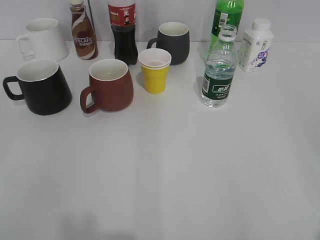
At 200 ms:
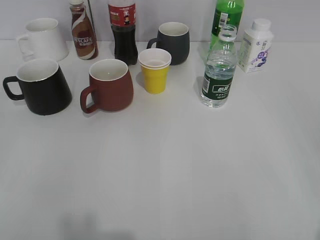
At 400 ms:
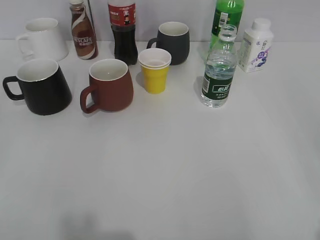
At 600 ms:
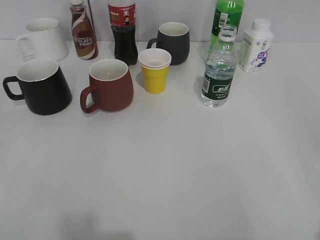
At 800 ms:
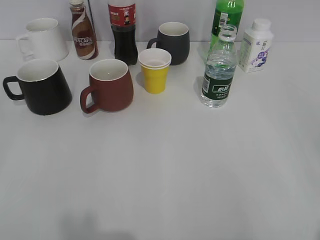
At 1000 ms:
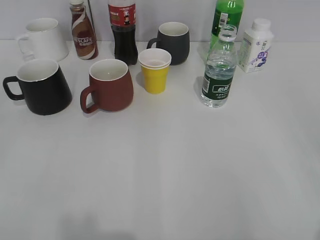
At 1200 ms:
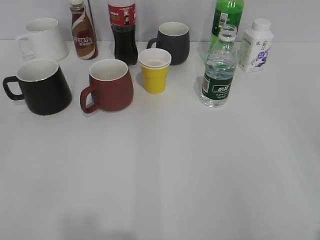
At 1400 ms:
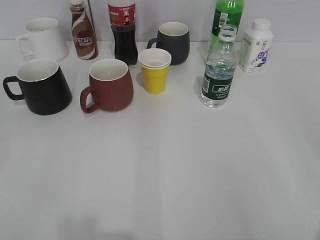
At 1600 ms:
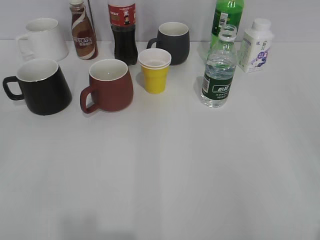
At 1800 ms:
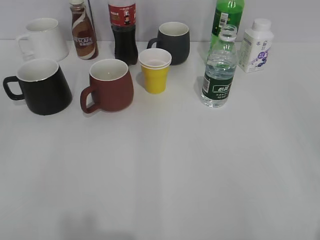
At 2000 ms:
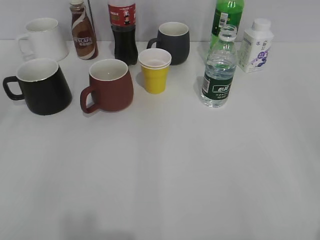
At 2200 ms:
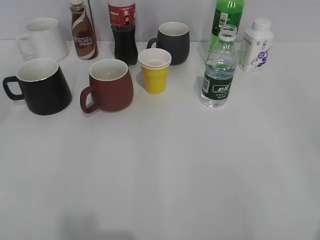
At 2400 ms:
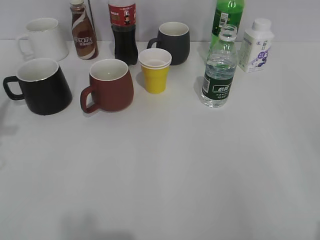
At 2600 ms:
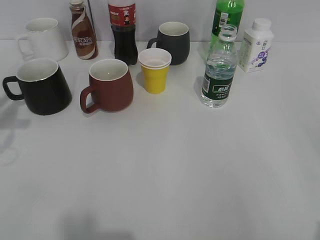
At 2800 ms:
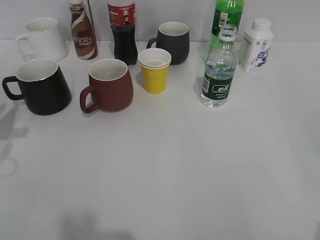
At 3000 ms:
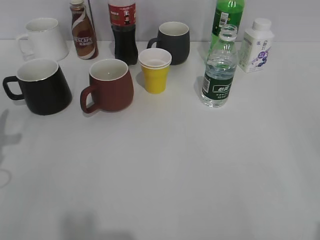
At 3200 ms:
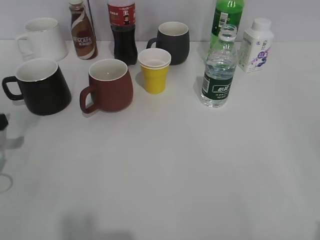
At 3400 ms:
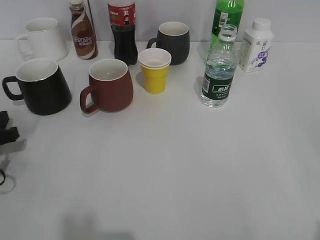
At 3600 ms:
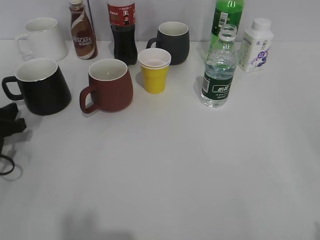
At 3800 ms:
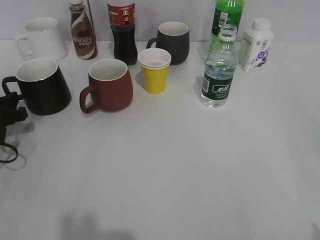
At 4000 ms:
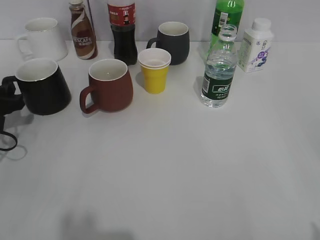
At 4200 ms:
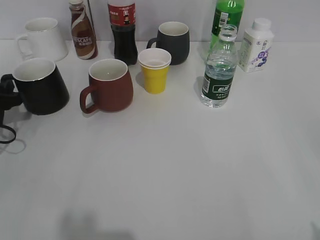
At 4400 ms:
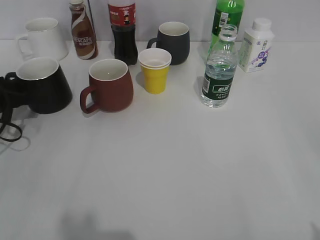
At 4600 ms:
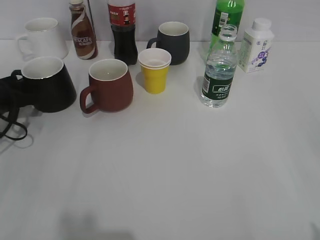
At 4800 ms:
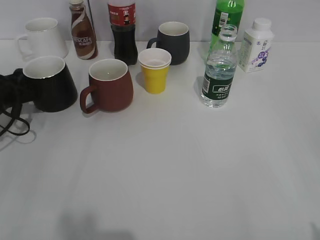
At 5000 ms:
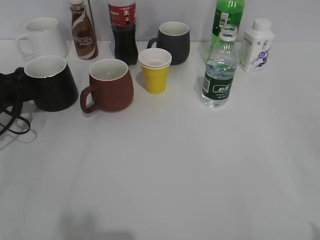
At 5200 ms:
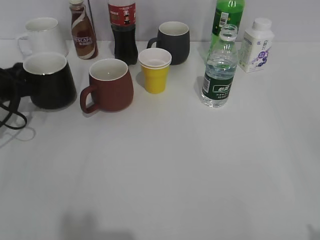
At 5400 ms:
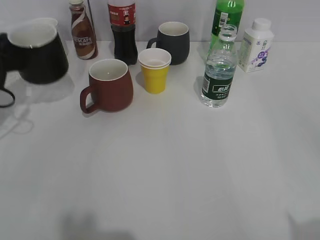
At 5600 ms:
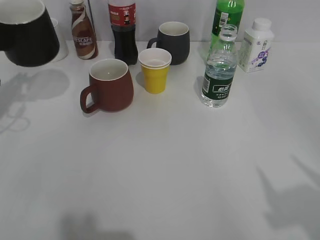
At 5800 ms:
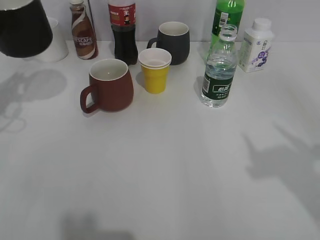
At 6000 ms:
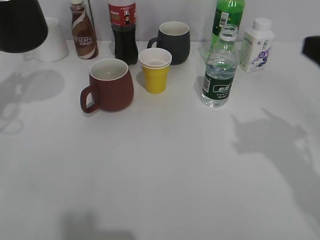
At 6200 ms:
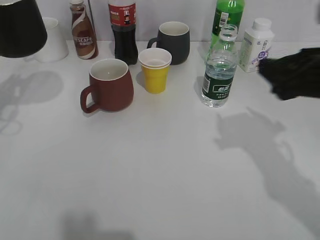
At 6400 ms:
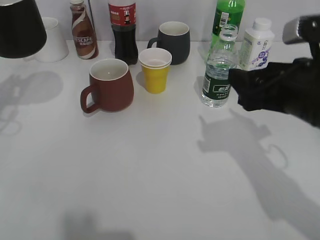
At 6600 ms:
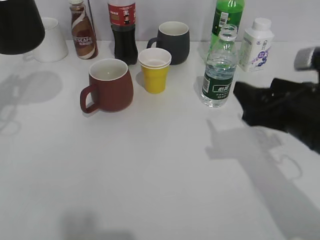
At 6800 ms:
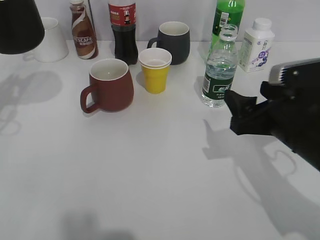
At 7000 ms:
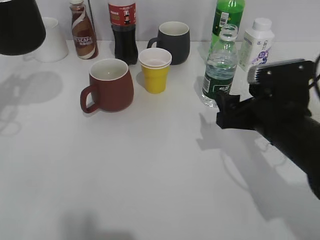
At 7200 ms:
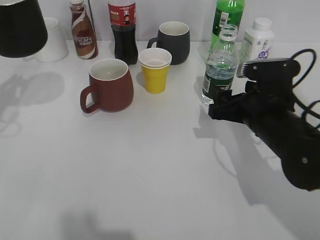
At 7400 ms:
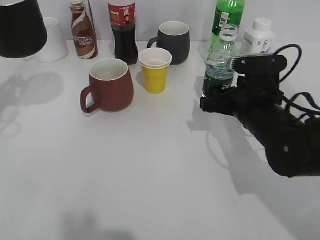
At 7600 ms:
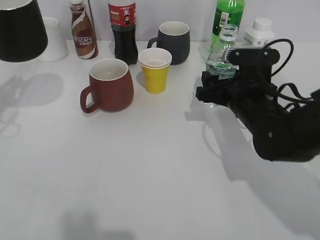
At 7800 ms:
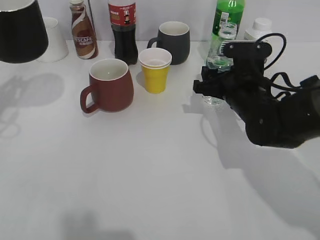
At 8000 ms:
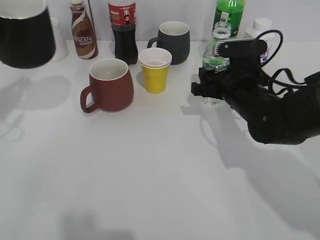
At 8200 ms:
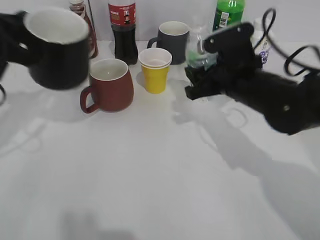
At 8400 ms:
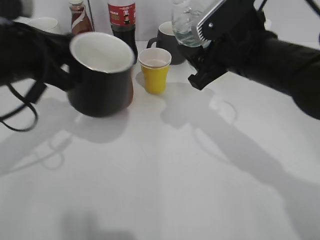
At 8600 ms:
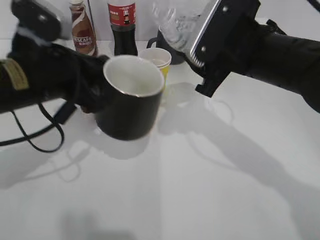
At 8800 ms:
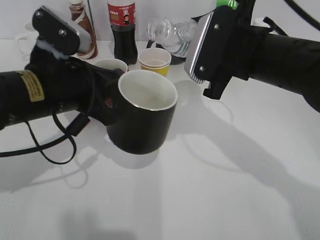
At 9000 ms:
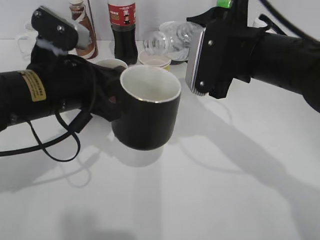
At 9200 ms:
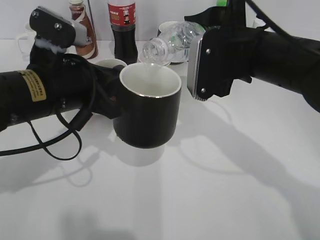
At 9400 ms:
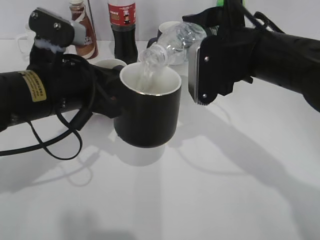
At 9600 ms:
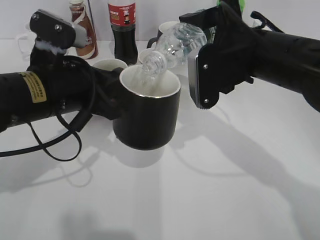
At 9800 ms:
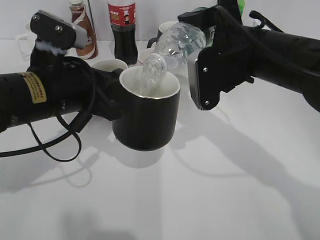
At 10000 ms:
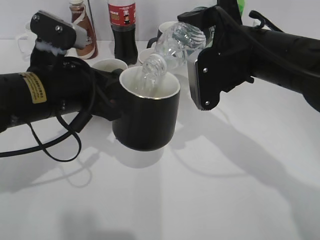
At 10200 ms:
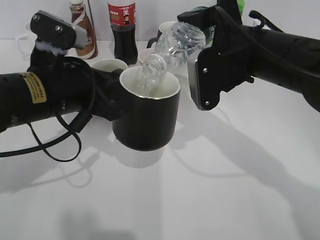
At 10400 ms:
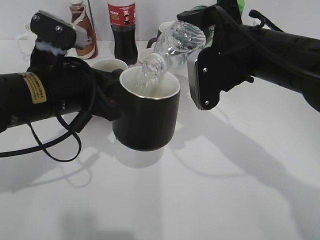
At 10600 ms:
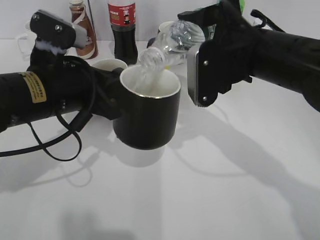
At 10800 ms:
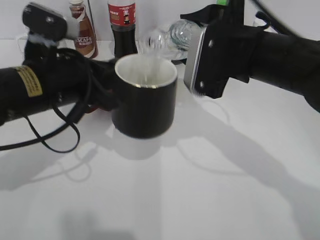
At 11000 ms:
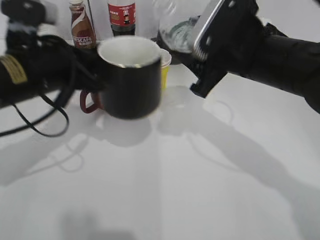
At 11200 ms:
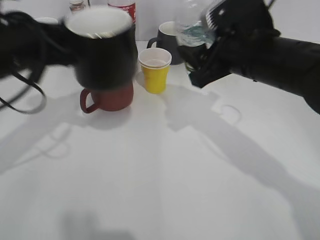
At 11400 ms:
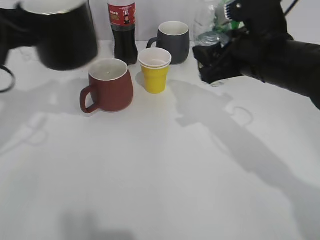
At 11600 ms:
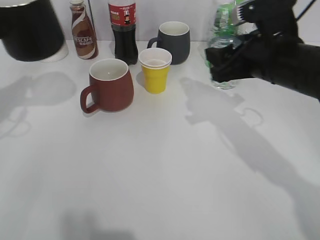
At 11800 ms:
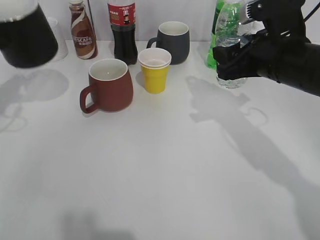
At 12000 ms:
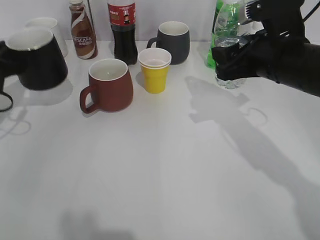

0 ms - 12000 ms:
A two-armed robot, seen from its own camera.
Step, 1600 ms - 5000 ms: Grasp the black cup with left gripper.
Step, 5200 ms - 6000 ms: Lift the black cup with left gripper.
Step, 6200 ms - 7800 ms: Grasp the bottle with water with right gripper.
Step, 8000 ms - 10800 ms: Pour the water from bottle to cup with right gripper.
1600 ms - 3000 ms: The left gripper is displaced forward and downward by approximately 25 cm.
3000 ms - 4400 ms: The left gripper shifts some 10 cm forward and downward.
4400 ms - 6000 ms: The right gripper moves forward, about 15 cm; the left gripper goes some 15 cm upward, and closes up.
6000 ms - 7600 ms: The right gripper heads downward, forward and to the left, covering approximately 25 cm.
7600 ms - 9000 ms: The right gripper heads upward, covering some 10 cm, and closes. The left gripper shifts some 15 cm to the right.
10400 ms - 12000 ms: The left gripper goes roughly 20 cm to the left and forward. Meanwhile the right gripper heads to the right, covering some 5 cm.

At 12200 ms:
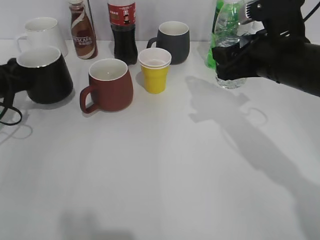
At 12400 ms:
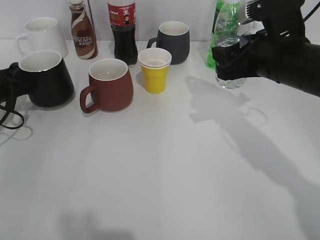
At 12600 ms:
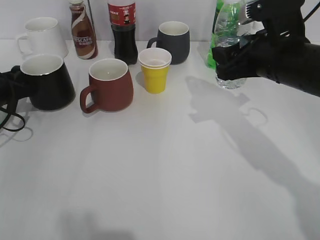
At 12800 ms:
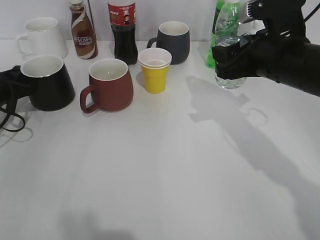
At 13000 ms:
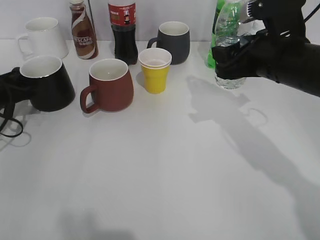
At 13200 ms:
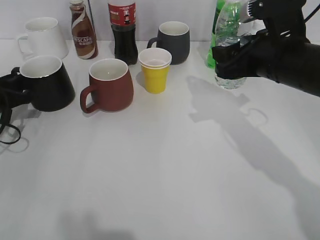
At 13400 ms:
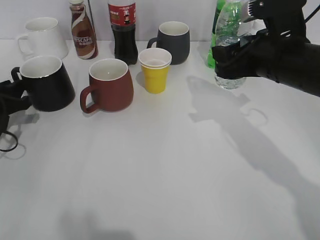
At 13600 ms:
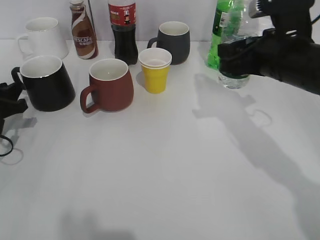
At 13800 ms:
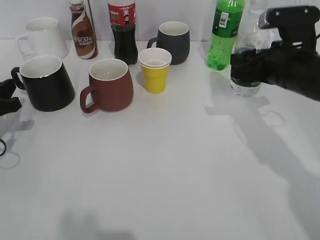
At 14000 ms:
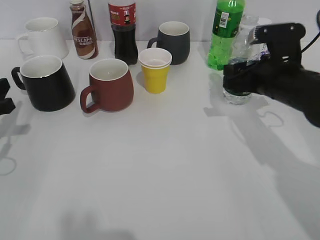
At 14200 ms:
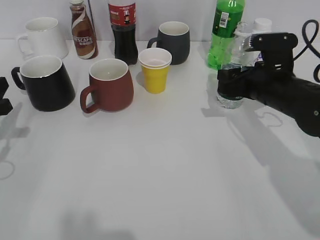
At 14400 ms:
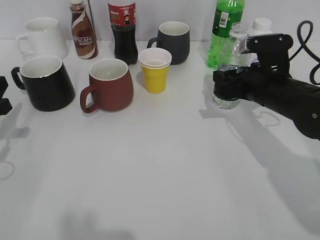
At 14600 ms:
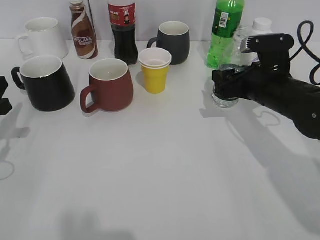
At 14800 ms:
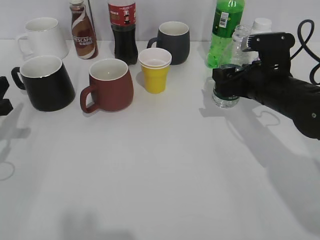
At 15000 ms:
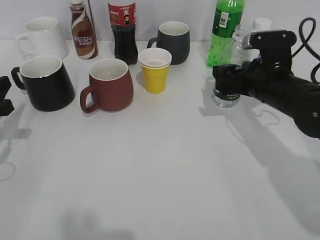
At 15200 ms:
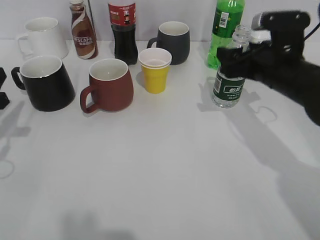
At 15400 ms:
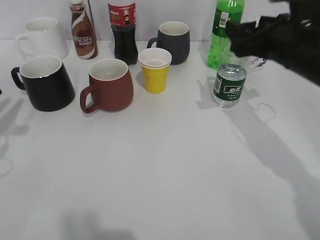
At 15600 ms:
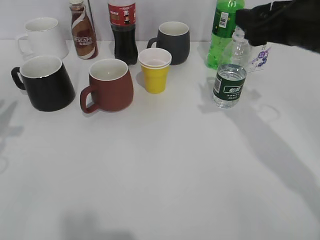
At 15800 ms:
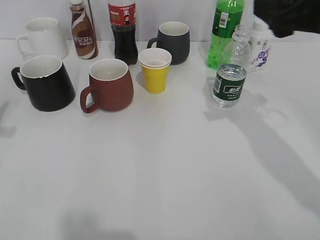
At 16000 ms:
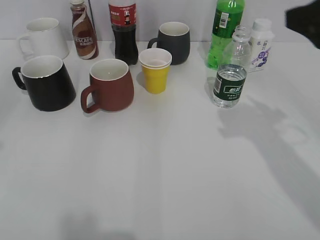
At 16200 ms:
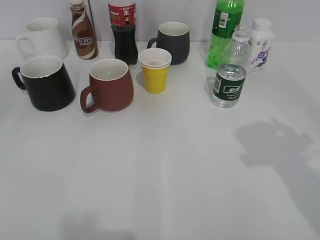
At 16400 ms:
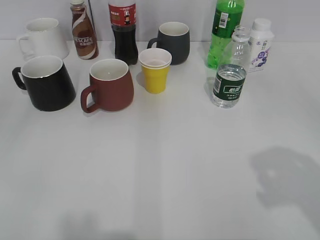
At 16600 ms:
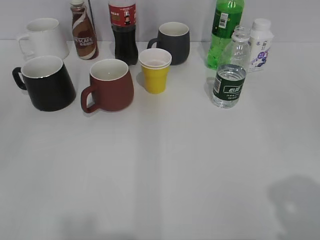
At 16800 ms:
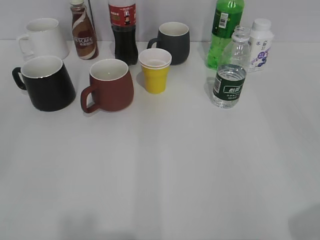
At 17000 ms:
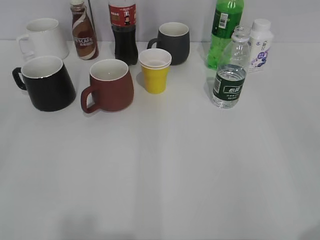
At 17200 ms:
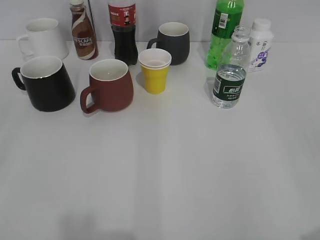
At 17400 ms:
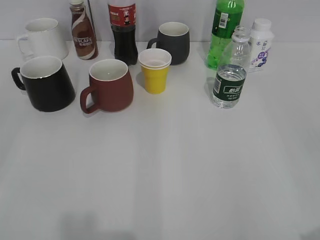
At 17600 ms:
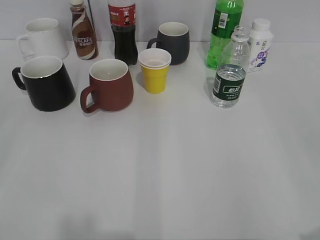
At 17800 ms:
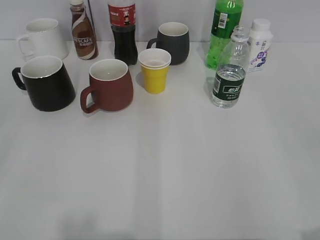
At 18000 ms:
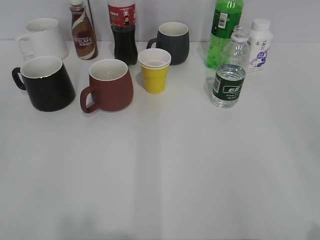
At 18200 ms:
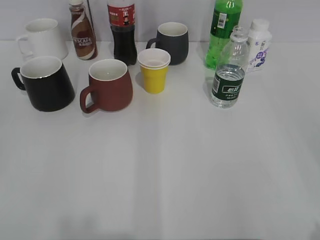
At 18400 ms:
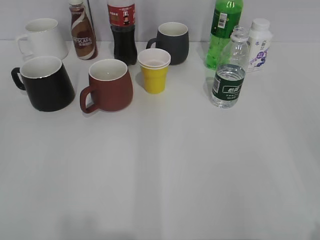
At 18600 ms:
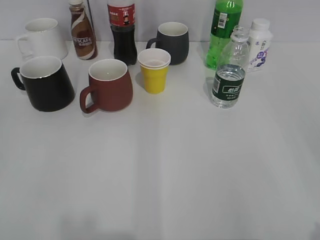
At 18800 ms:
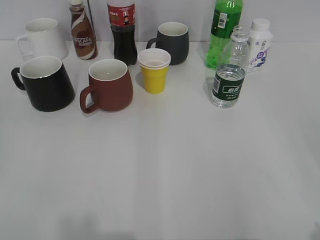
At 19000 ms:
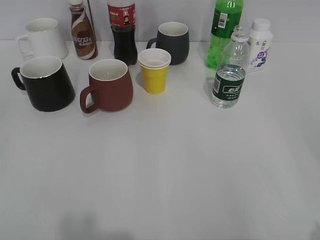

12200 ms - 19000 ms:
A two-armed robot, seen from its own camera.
Step, 13000 ms - 15200 ms: Place the water bottle on the table with right gripper.
12200 ms - 13600 ms: The left gripper ends up about 5 cm from where it was, and opens up.
13600 ms - 15000 ms: The left gripper moves approximately 5 cm, while the right gripper shifts some 5 cm downward, and opens its fingers.
15000 ms - 16200 ms: Both grippers move upward and backward, approximately 25 cm.
